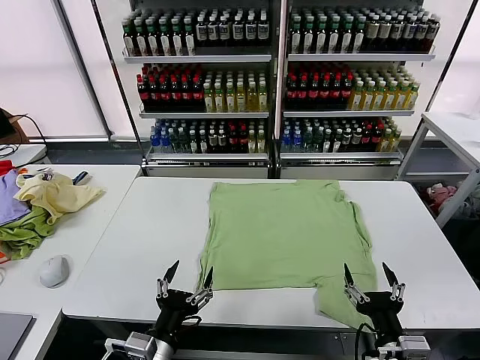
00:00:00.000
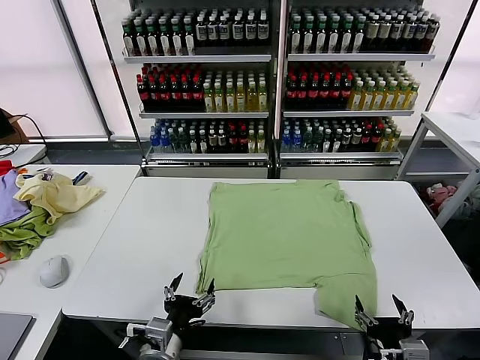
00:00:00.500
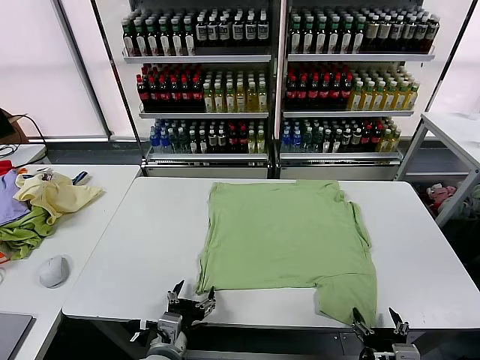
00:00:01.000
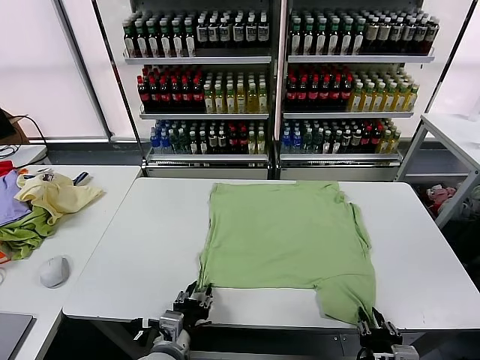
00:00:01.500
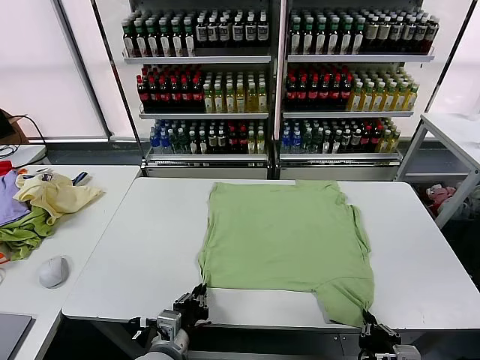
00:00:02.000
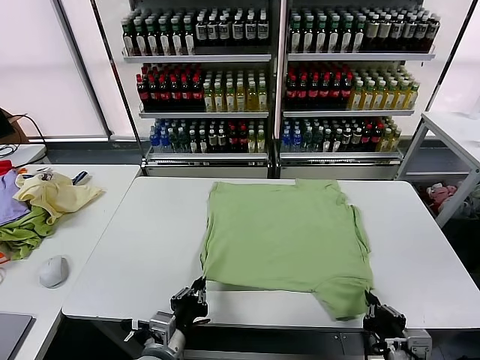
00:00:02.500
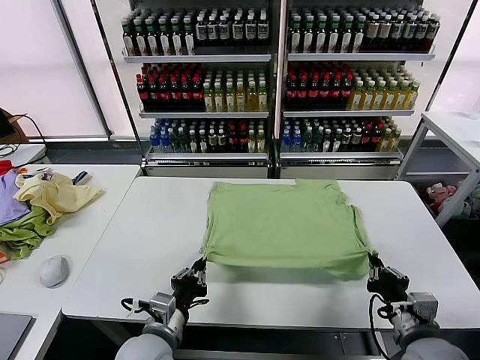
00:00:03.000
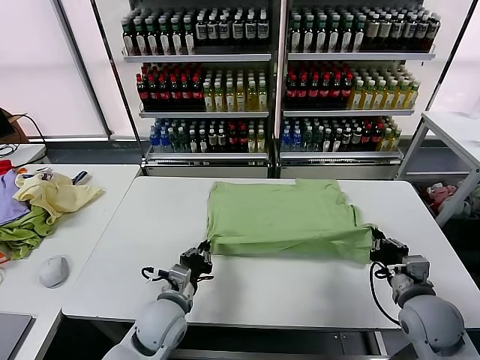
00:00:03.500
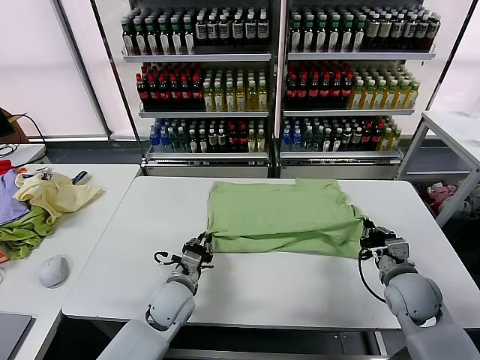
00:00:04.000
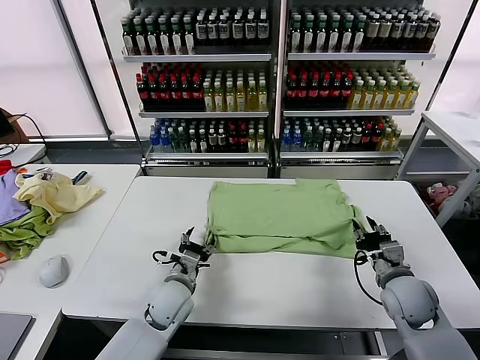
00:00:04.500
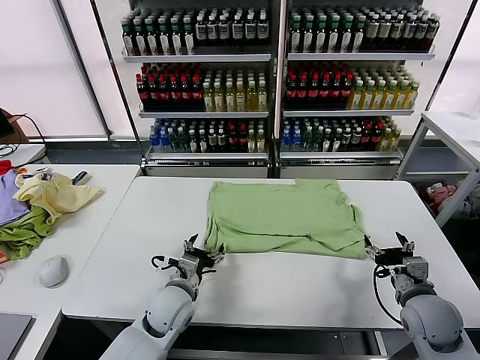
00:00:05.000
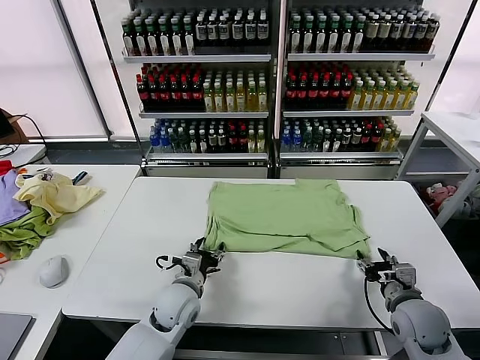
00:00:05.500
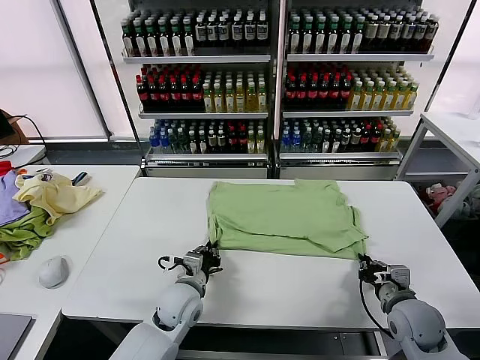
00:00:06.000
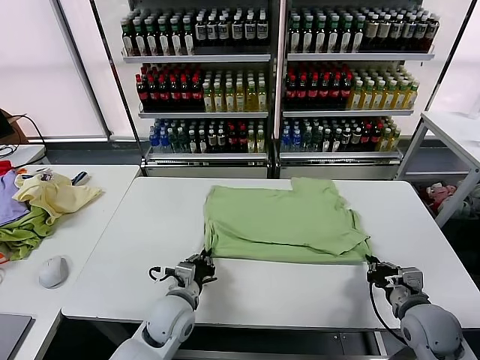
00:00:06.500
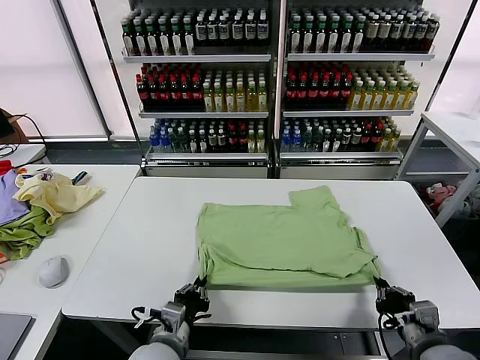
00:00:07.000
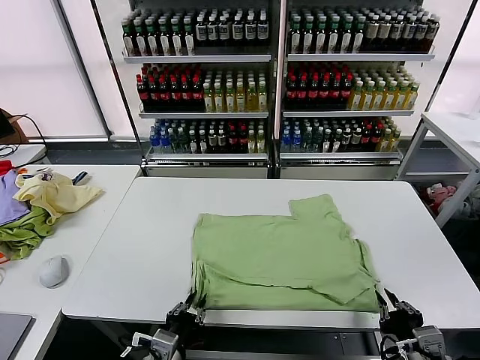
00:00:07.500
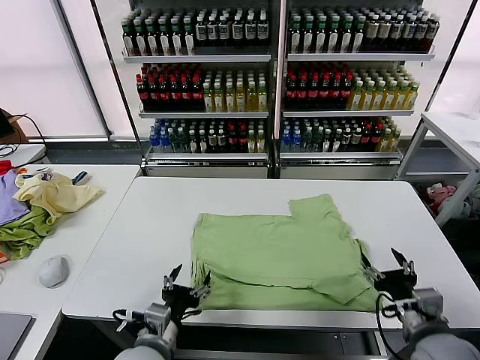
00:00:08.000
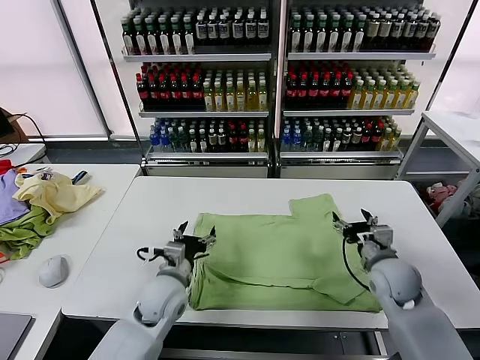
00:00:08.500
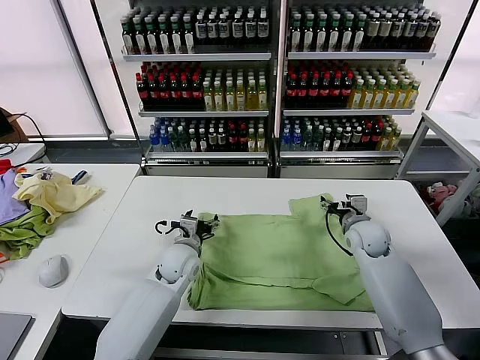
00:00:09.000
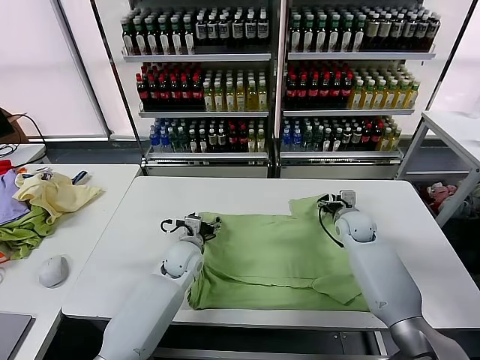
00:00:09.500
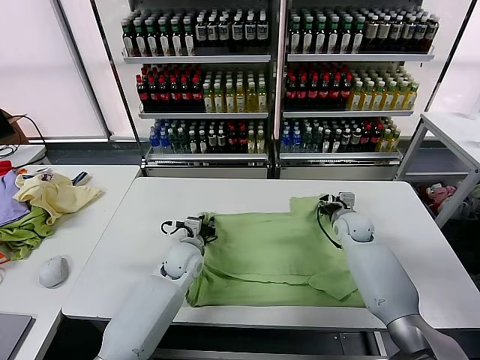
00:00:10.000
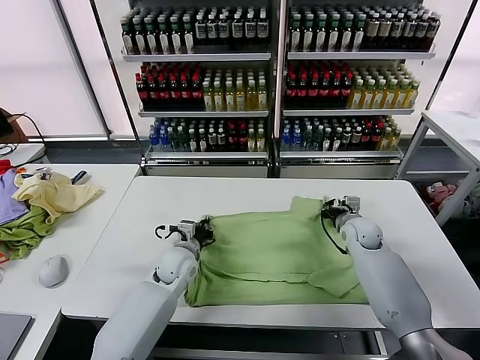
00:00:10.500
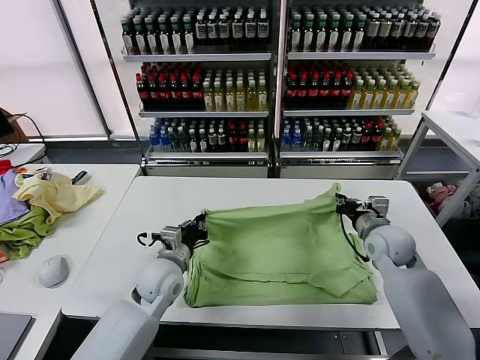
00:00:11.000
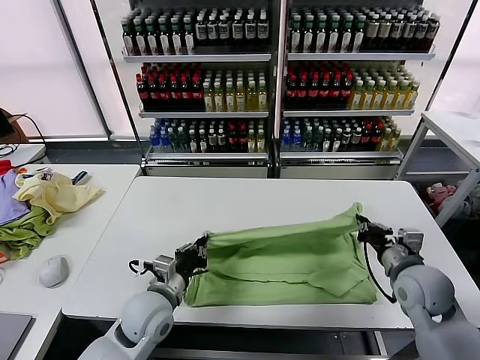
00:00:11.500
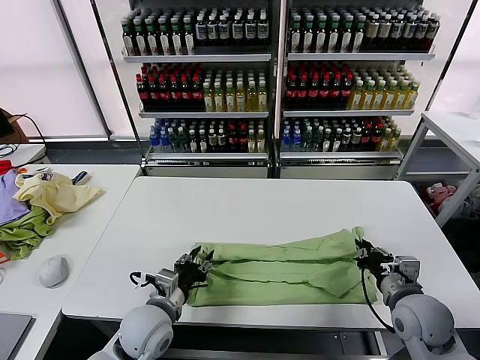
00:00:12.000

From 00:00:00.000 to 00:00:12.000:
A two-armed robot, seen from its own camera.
Task of the whole recording: fold and organize the clothes.
Step, from 00:00:00.000 to 00:00:01.500: use both grippers simultaneously to clamp the lower edge of the clothing fabric.
Step, from 00:00:02.000 to 00:00:04.500: use both grippers to drag the lower edge of the fabric forward and fold it over the upper edge.
Step, from 00:00:05.000 to 00:00:07.500: Drag the clothes downward with both gripper.
Step, from 00:00:08.000 to 00:00:10.000: use both grippers simultaneously to clamp the upper edge of the clothing fabric.
From 00:00:02.000 to 00:00:04.000: The two grippers go approximately 20 cm forward.
From 00:00:04.000 to 00:00:06.000: The right gripper ends up approximately 5 cm from where it was, and opens, then closes again; the left gripper opens, then closes again.
From 00:00:06.000 to 00:00:08.000: The right gripper heads backward and upward, covering about 10 cm, and opens up, while the left gripper moves backward, some 15 cm, and opens up.
From 00:00:08.000 to 00:00:10.000: The grippers both shift forward by some 30 cm. The left gripper closes up; the right gripper closes.
From 00:00:10.000 to 00:00:12.000: The grippers both shift backward by some 20 cm. The left gripper closes and opens again.

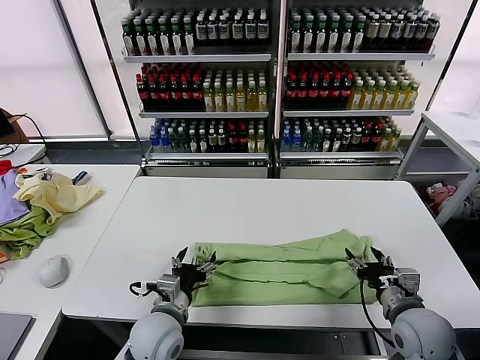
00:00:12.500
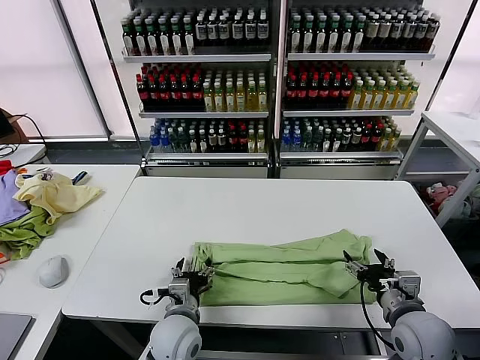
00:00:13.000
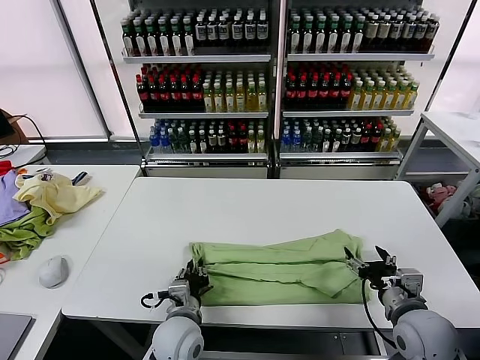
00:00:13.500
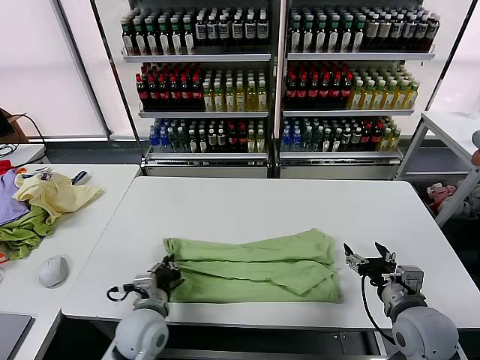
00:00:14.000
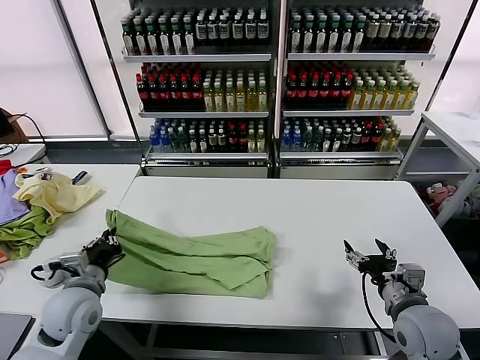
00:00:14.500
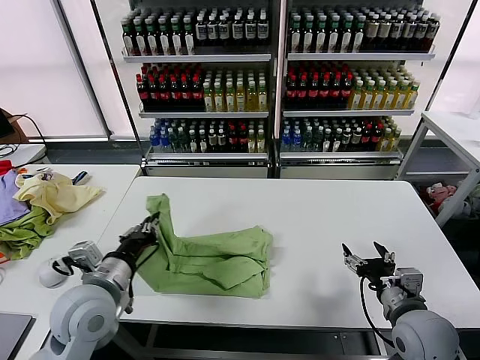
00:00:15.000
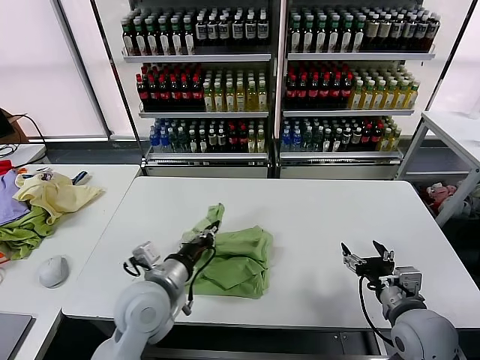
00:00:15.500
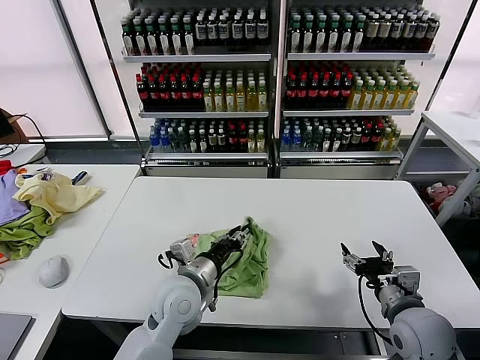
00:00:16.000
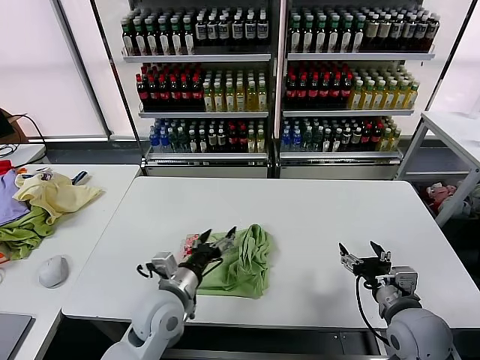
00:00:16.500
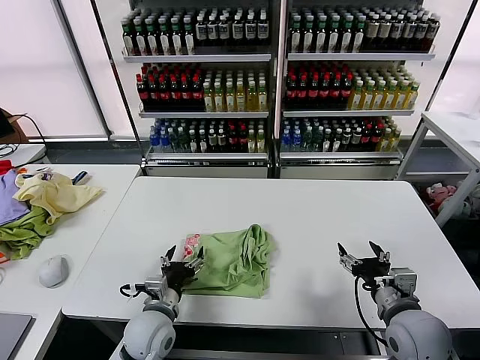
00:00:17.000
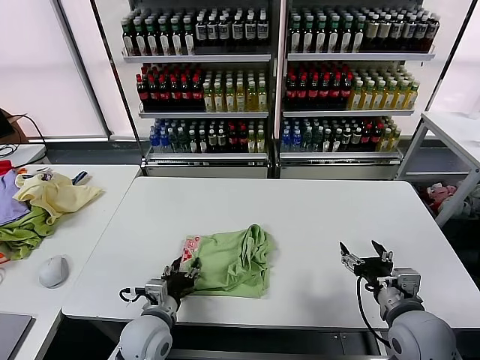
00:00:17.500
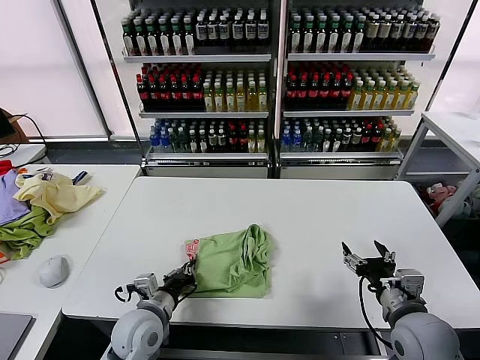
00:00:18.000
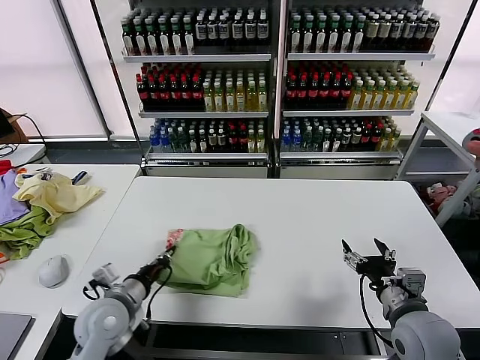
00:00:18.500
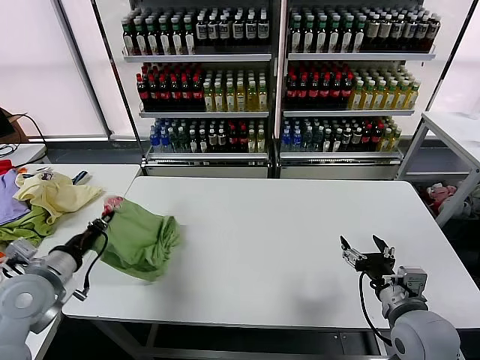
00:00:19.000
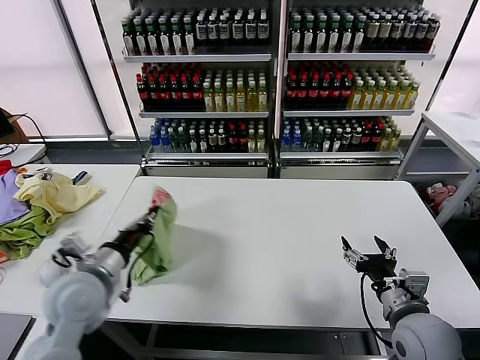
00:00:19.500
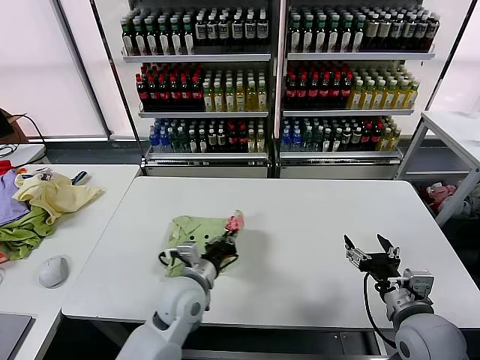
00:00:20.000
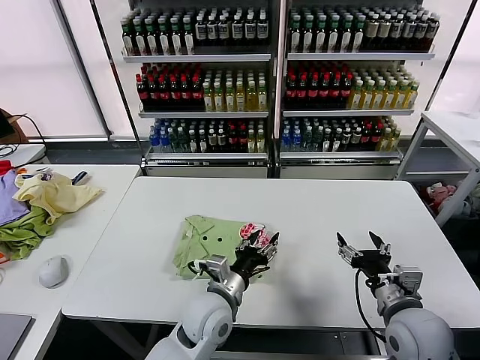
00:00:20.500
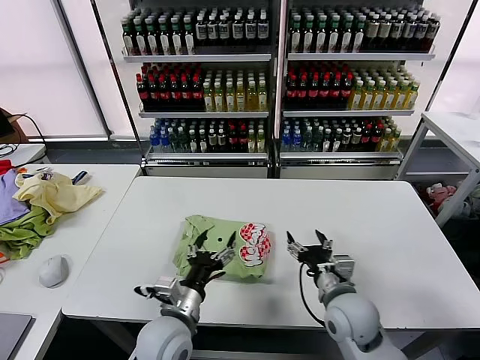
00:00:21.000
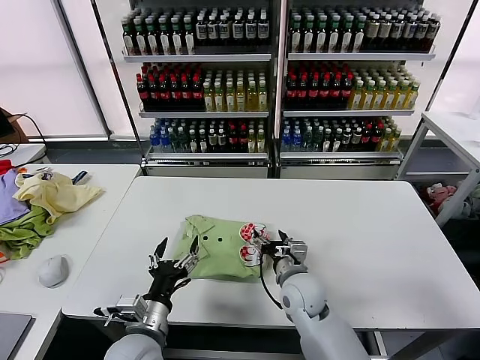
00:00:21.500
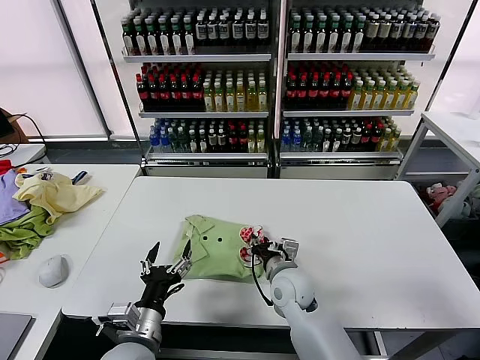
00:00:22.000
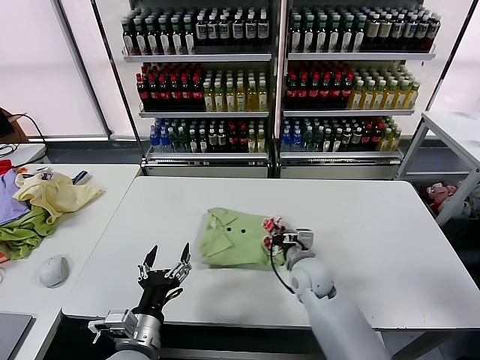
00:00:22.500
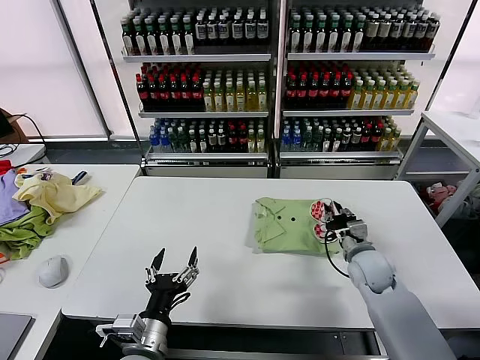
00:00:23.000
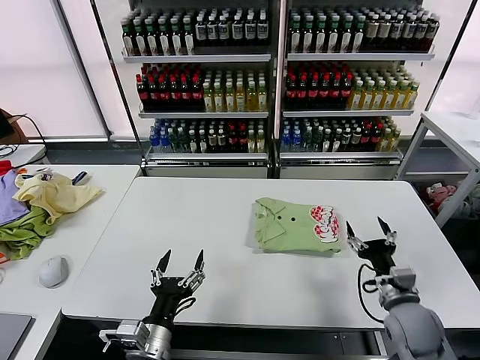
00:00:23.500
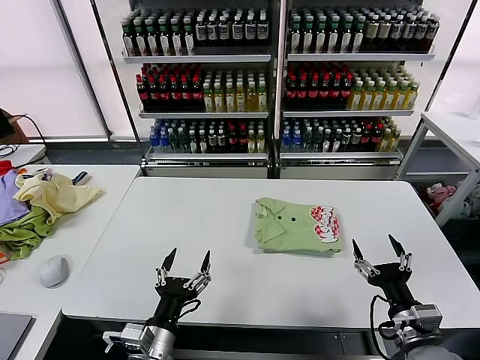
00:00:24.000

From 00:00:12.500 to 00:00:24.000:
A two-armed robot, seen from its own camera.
Task of the whole recording: fold and organize the clothes.
Step, from 00:00:12.500 to 00:00:13.500: use the left gripper to clamp the left edge of the fabric.
Step, from 00:00:14.000 to 00:00:16.000: use the left gripper to drag the left edge of the fabric to the left and folds it over the right edge.
Step, from 00:00:16.500 to 00:00:20.000: Flip the folded clothes over with left gripper.
Step, from 00:00:21.000 to 00:00:23.000: Drag the clothes to the center of the table.
From 00:00:12.500 to 00:00:14.500: The left gripper heads to the left, covering some 15 cm, and closes its fingers.
From 00:00:14.500 to 00:00:16.500: The left gripper heads to the right, covering some 15 cm, and opens up.
From 00:00:16.500 to 00:00:18.500: The left gripper goes about 10 cm to the left, and closes its fingers.
From 00:00:18.500 to 00:00:20.000: The left gripper moves to the right, some 10 cm.
From 00:00:20.000 to 00:00:22.000: The left gripper is displaced backward and to the left by roughly 15 cm, and opens up. Meanwhile the right gripper is displaced to the left, forward and downward by some 25 cm, and closes up.
From 00:00:22.000 to 00:00:24.000: The right gripper heads to the right and backward, covering approximately 30 cm, and opens its fingers.

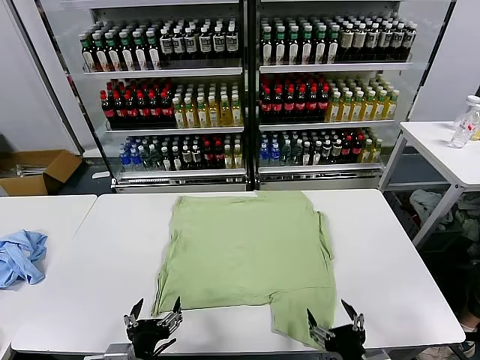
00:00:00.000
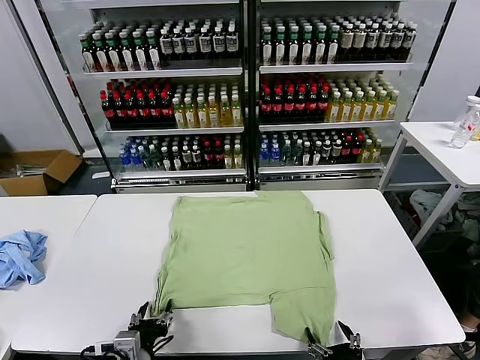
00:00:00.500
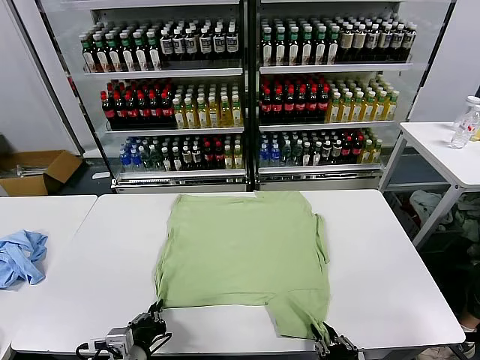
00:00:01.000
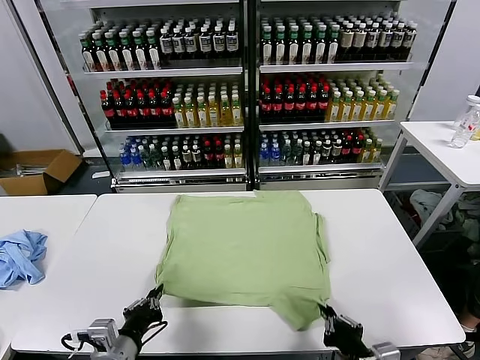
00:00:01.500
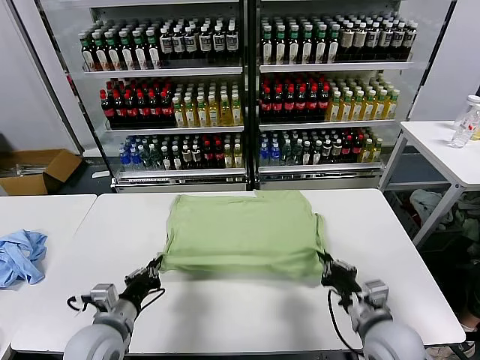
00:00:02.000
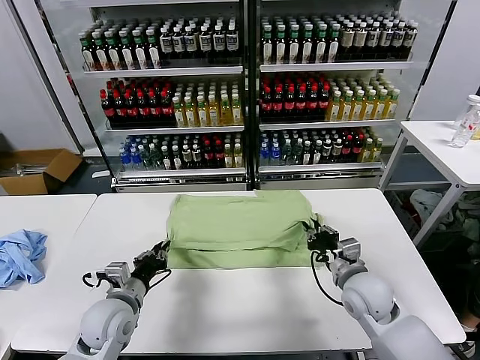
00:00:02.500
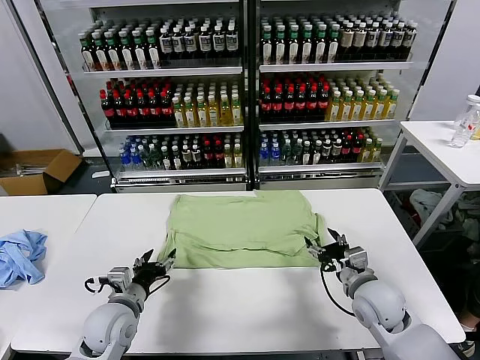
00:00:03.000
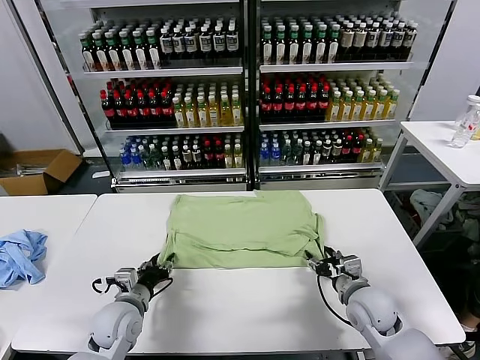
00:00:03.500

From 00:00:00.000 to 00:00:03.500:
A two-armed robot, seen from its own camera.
Task of the whole recording: fold and organize the clothes.
Step, from 00:00:00.000 to 00:00:01.000: use both grippers simultaneously to clamp the lower edge of the clothing fabric.
Step, from 00:00:01.500 to 00:00:02.500: use both grippers to drag the lower edge of the fabric forward and fold it over the upper edge.
From 00:00:02.000 to 00:00:03.500: The right gripper goes some 5 cm forward, and opens its fingers, while the left gripper goes some 10 cm forward and downward, and opens its fingers.
